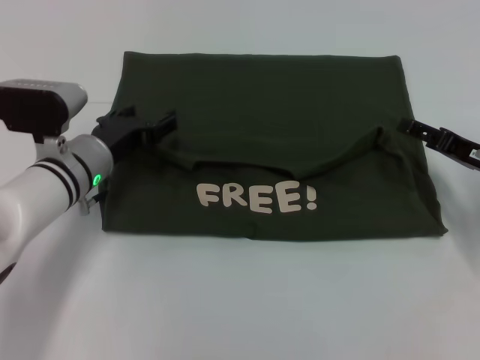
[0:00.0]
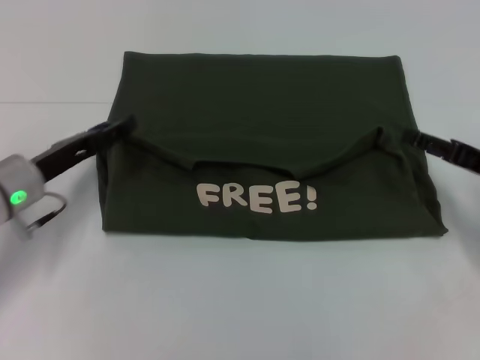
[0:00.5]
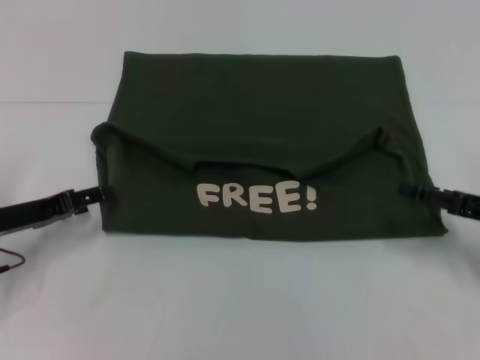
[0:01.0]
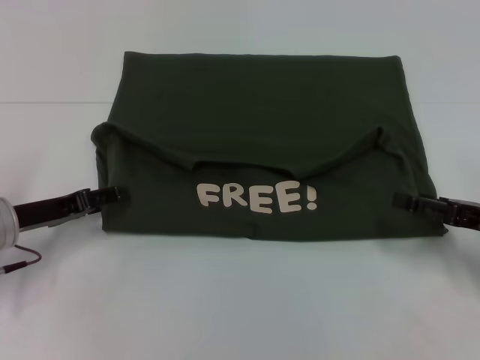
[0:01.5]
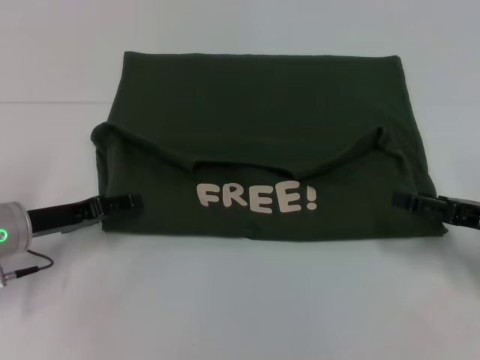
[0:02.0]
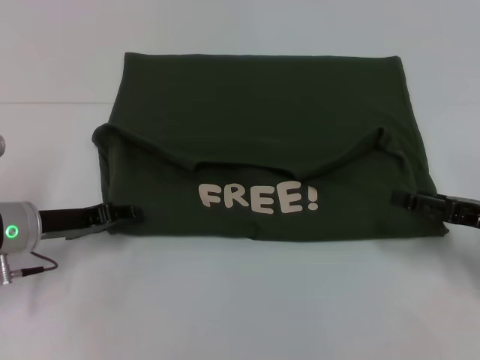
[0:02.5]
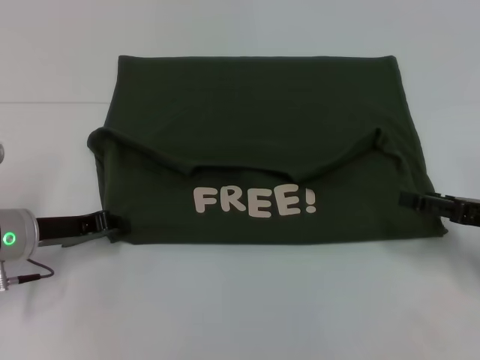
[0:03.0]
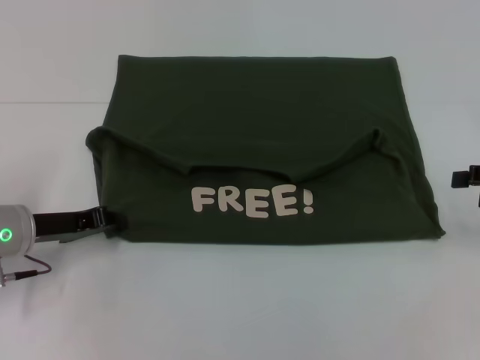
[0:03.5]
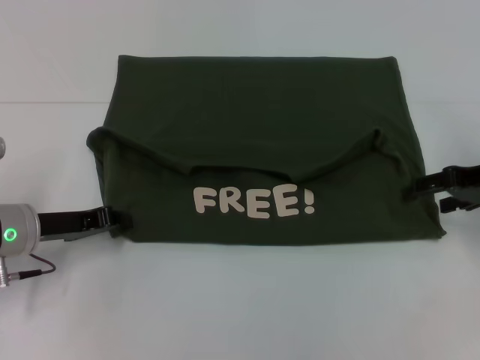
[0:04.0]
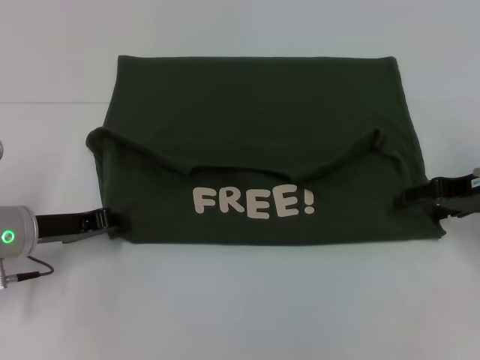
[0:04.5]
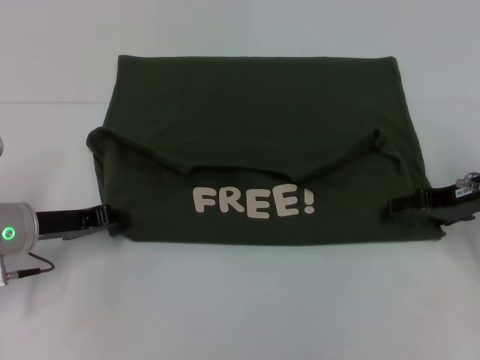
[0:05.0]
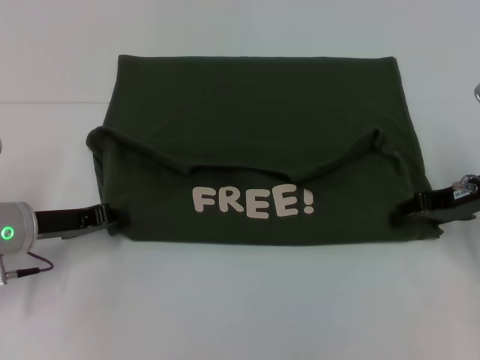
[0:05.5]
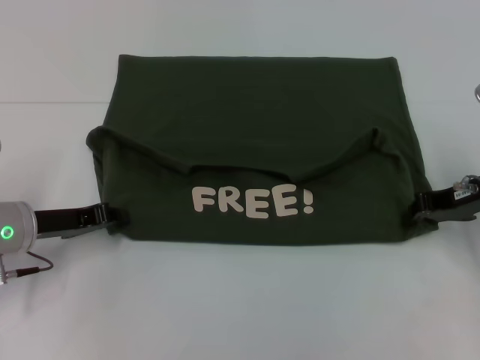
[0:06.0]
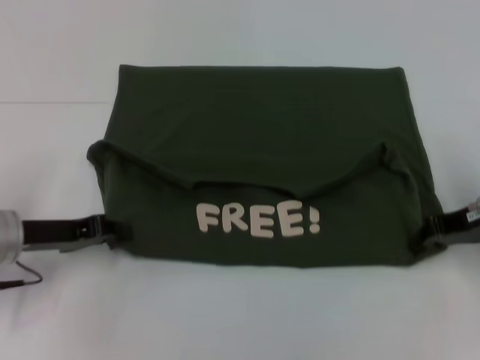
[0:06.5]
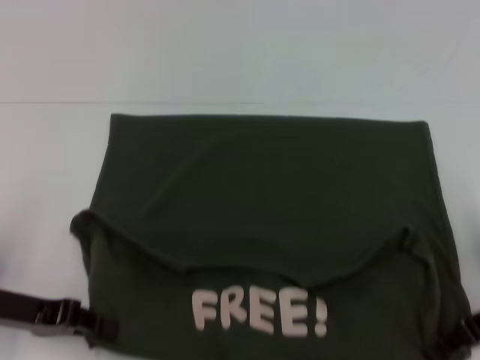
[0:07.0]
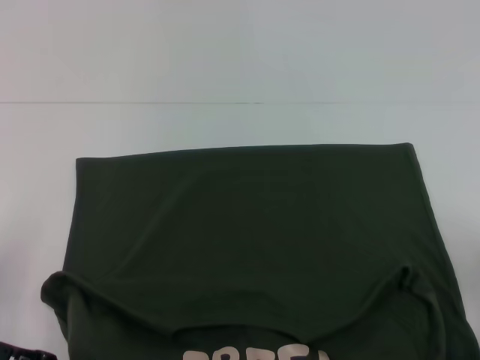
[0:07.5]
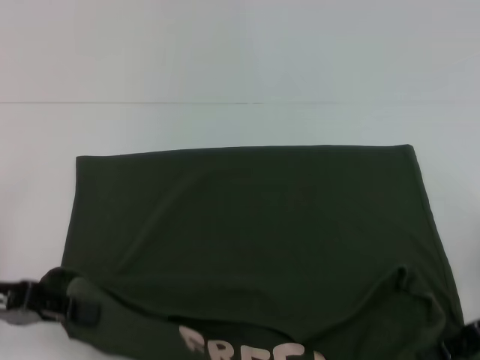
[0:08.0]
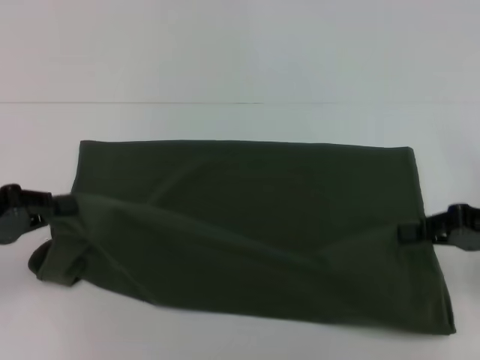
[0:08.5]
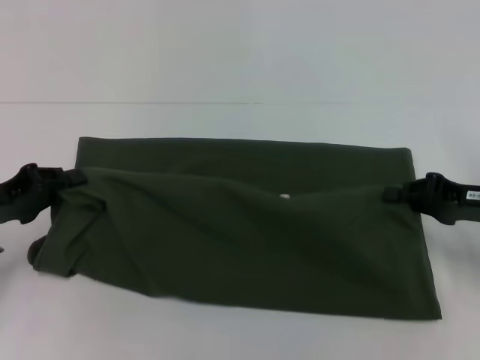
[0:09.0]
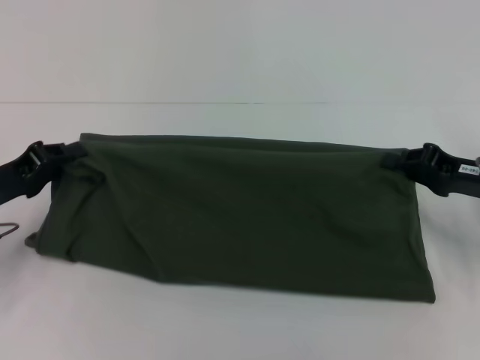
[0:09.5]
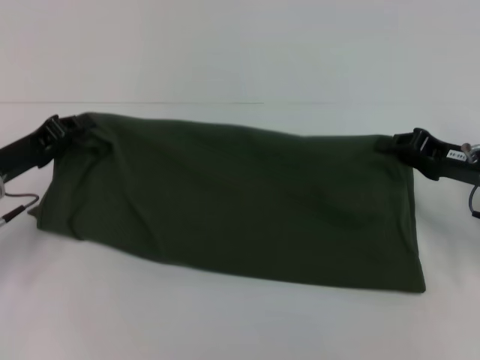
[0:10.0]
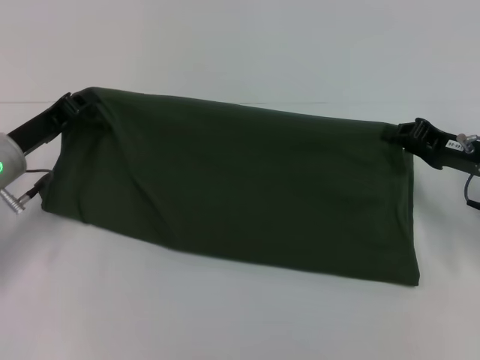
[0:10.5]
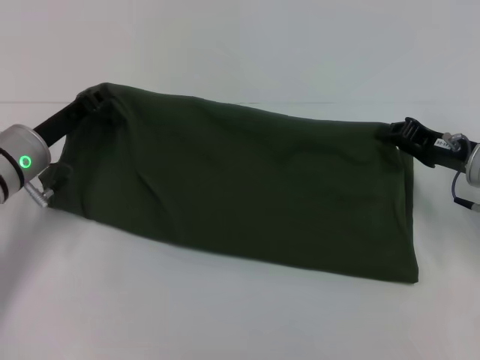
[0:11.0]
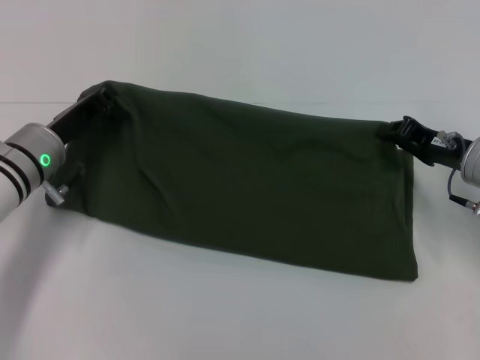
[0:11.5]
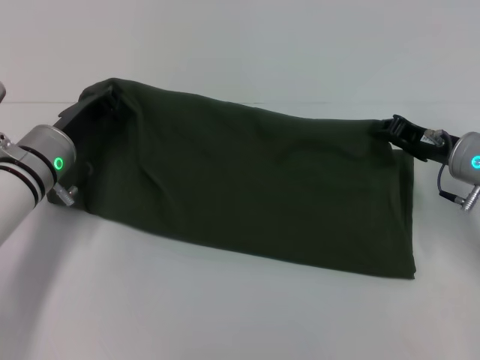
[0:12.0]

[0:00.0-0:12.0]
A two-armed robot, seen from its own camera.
Step, 0:00.5 to 0:07.0: Pull the clothes with your left hand.
Step, 0:00.5 to 0:07.0: Pull the clothes with your right hand.
0:00.0 to 0:02.0: The left gripper moves to the left and backward, about 10 cm. The right gripper goes approximately 5 cm backward.
0:02.0 to 0:04.0: The left gripper closes its fingers, while the right gripper shifts about 10 cm forward and upward.
0:04.0 to 0:06.0: The right gripper closes up.
0:06.0 to 0:08.0: The right gripper is displaced backward by about 10 cm; the left gripper heads backward and upward, covering some 10 cm.
0:08.0 to 0:10.0: The two grippers go about 10 cm forward.
0:10.0 to 0:12.0: The left gripper moves to the right, roughly 5 cm.

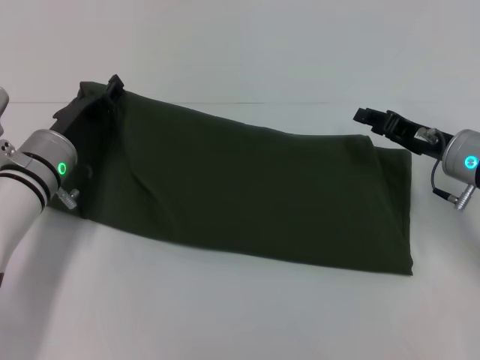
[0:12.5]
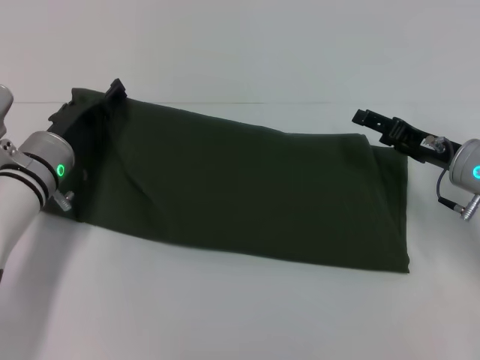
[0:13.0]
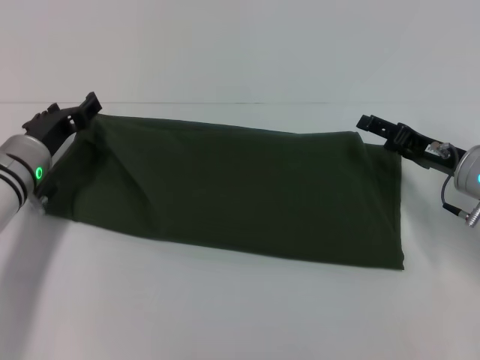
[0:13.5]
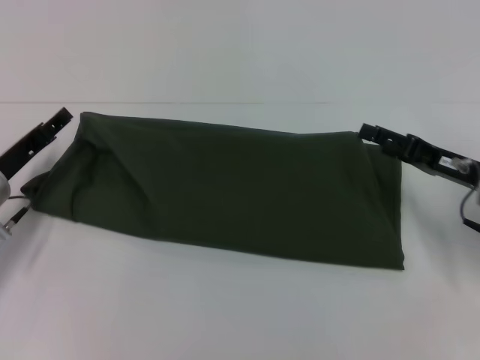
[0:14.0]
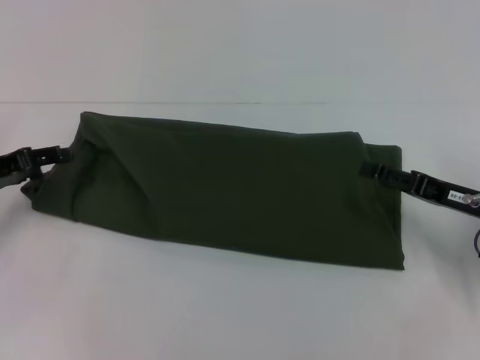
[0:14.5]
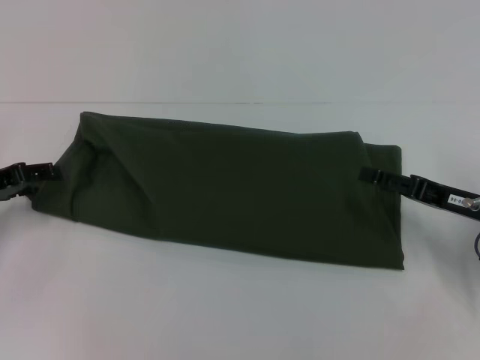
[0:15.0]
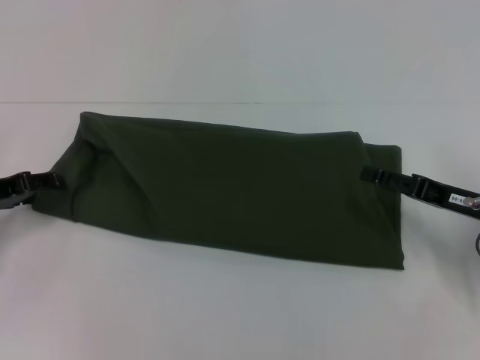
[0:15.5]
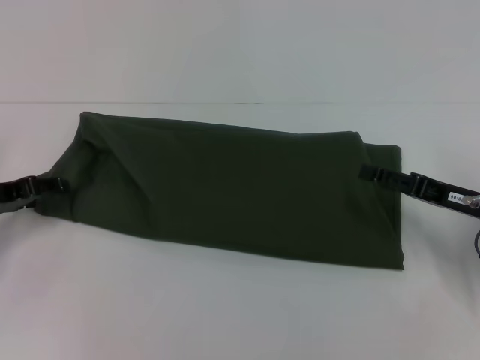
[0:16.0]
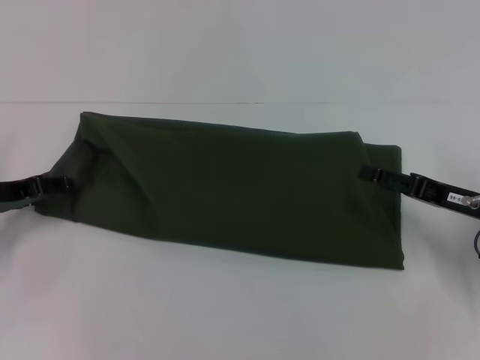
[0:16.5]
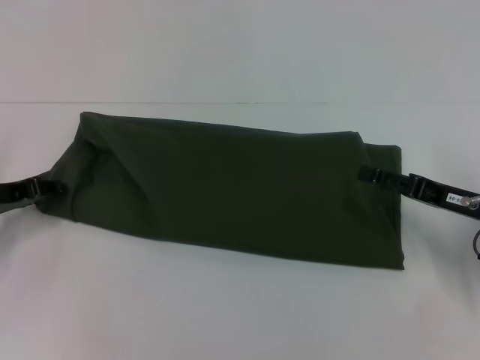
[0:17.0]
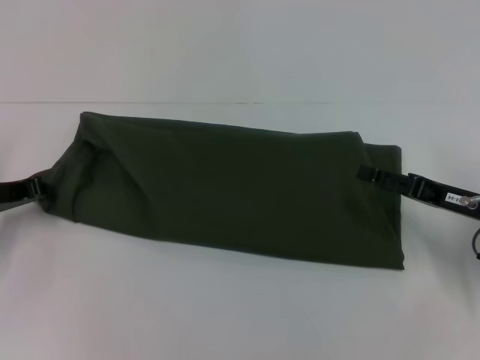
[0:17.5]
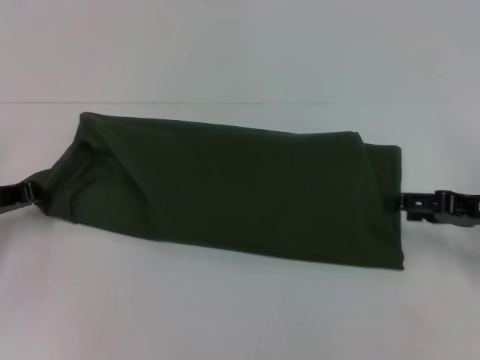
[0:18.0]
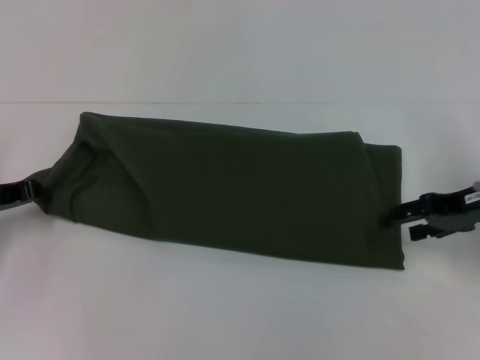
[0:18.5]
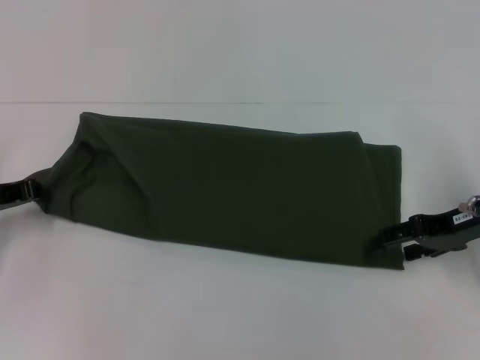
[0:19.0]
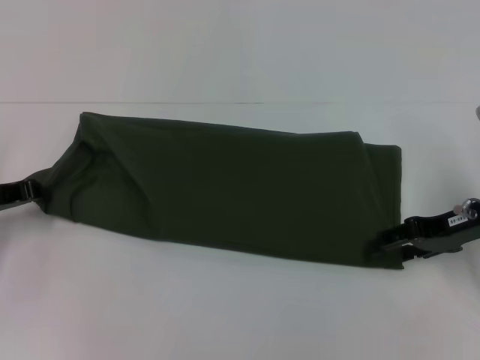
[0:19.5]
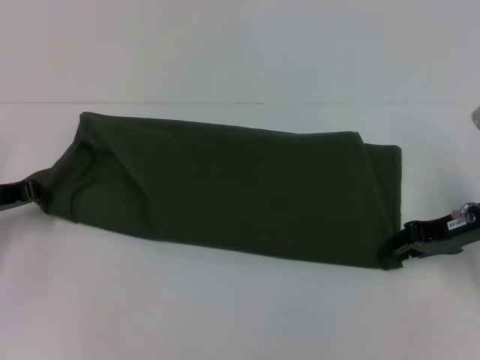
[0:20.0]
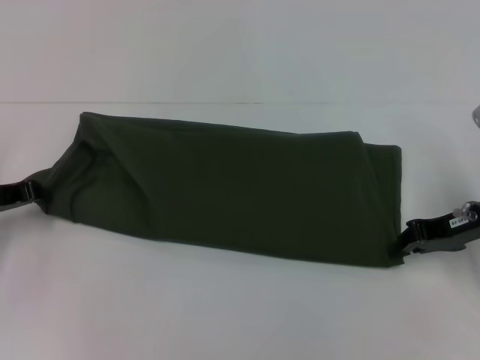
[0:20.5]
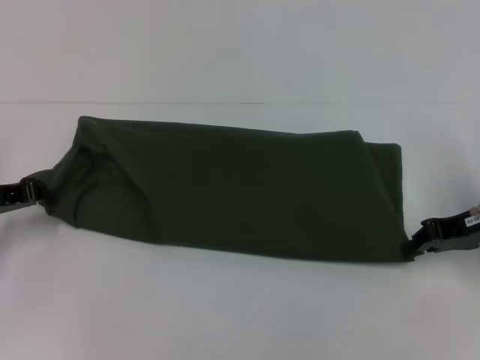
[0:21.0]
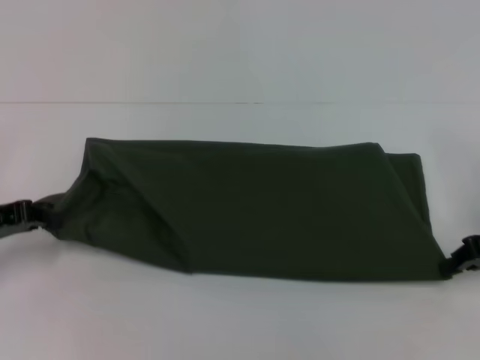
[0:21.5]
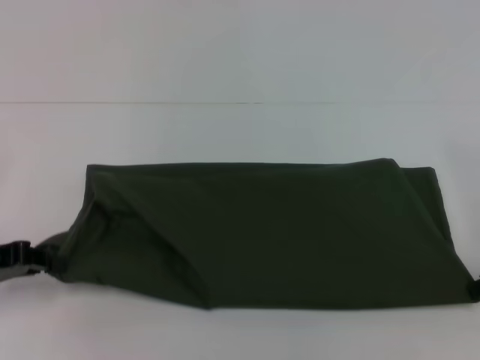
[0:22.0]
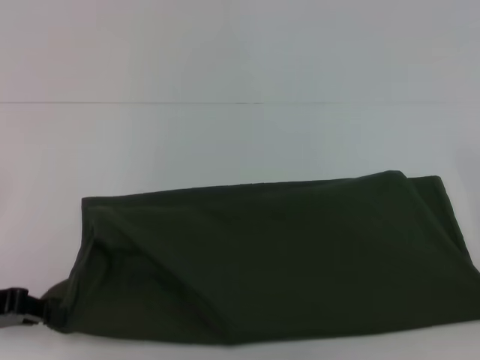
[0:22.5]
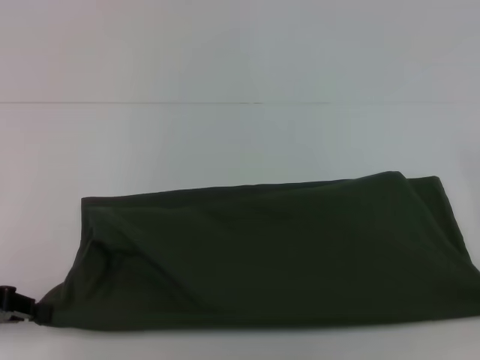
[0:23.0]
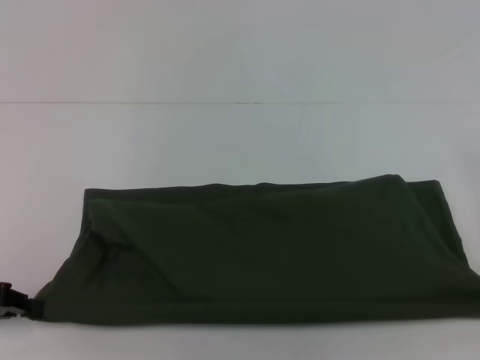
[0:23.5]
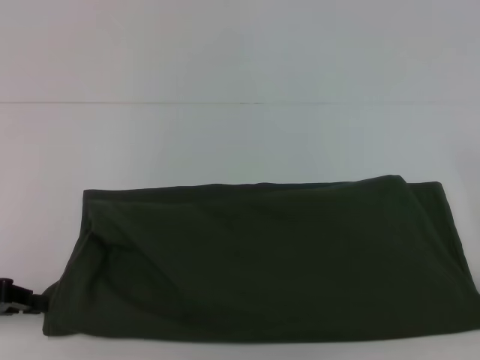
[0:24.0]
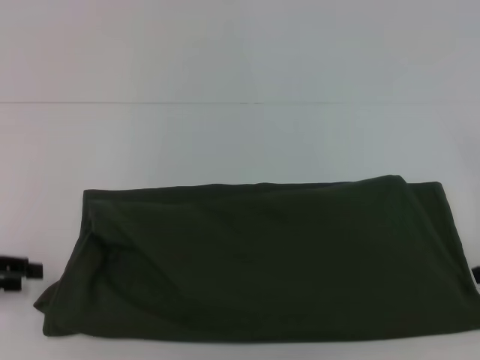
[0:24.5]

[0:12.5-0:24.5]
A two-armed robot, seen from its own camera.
0:12.5 to 0:14.5: The right gripper is displaced backward by about 5 cm, and opens. Meanwhile the left gripper is displaced to the left by approximately 10 cm, and opens its fingers.
0:14.5 to 0:16.5: The grippers move only a little.
0:16.5 to 0:18.5: The right gripper shifts approximately 5 cm upward.
0:18.5 to 0:20.5: The right gripper closes.
0:20.5 to 0:22.5: The left gripper travels backward by approximately 10 cm, while the right gripper shifts about 10 cm to the right.
0:22.5 to 0:24.5: The left gripper opens its fingers; the right gripper opens.

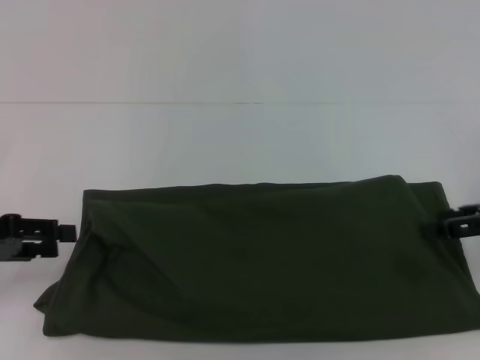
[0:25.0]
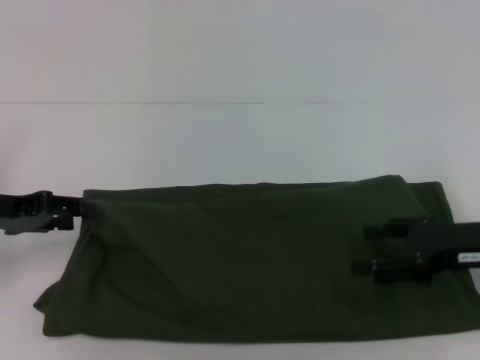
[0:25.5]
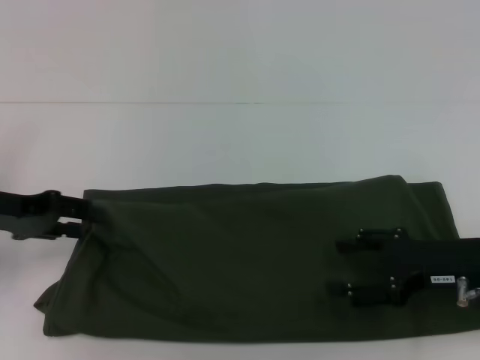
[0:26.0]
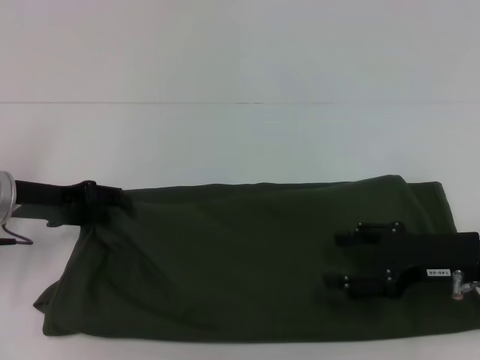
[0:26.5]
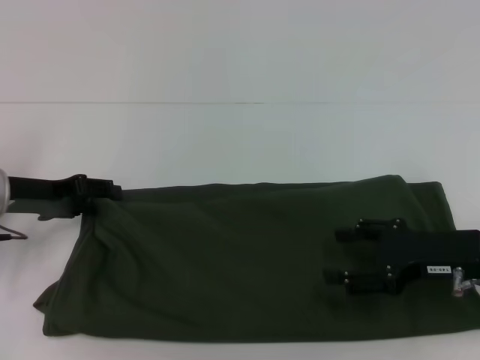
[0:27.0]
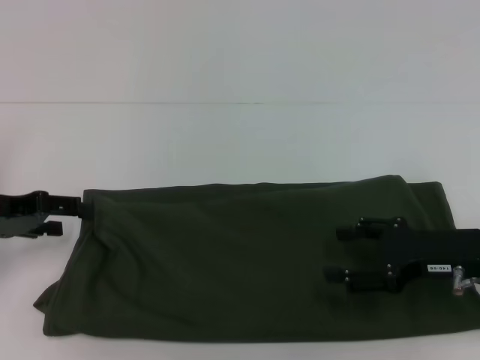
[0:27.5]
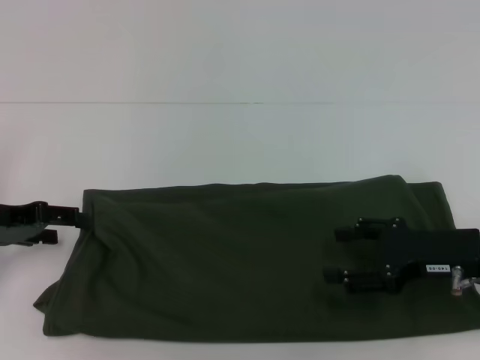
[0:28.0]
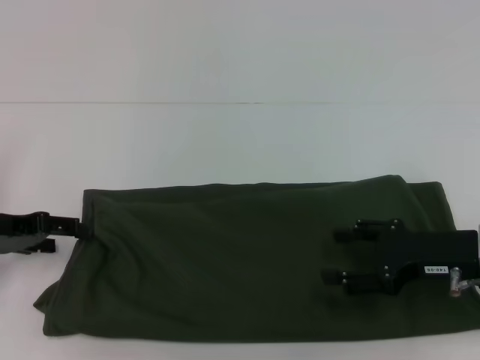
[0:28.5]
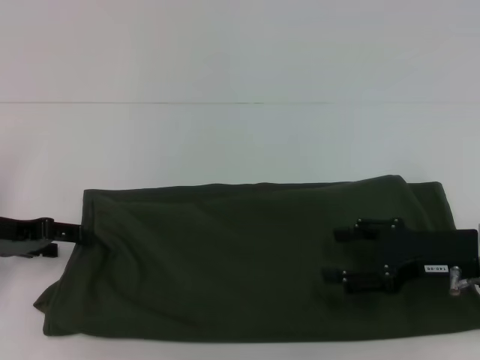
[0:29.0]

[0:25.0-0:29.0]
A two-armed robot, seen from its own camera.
0:25.0 to 0:27.0: The right gripper travels to the left and downward by approximately 10 cm, while the left gripper heads forward and to the right, covering roughly 10 cm.
0:27.0 to 0:29.0: The grippers stay close to where they were, moving slightly.
